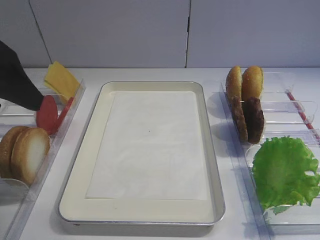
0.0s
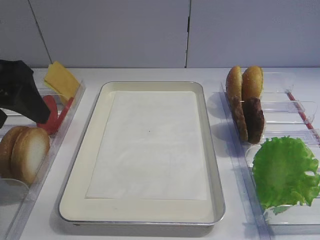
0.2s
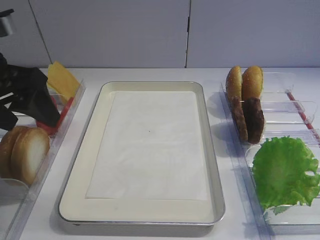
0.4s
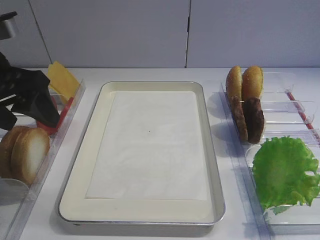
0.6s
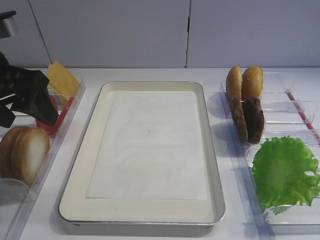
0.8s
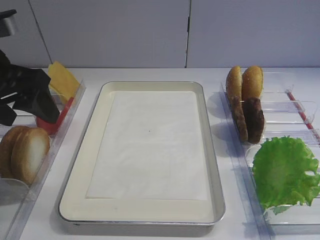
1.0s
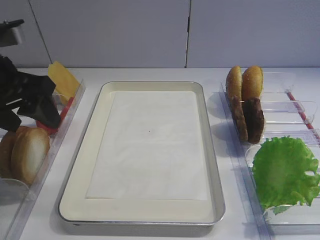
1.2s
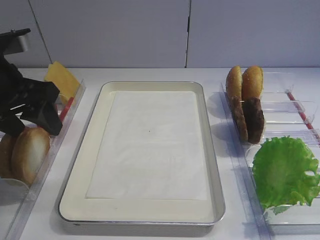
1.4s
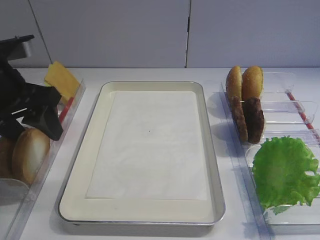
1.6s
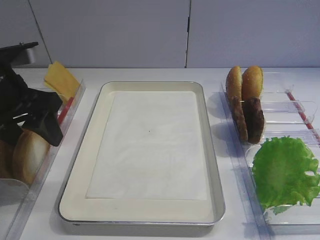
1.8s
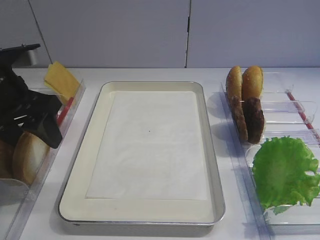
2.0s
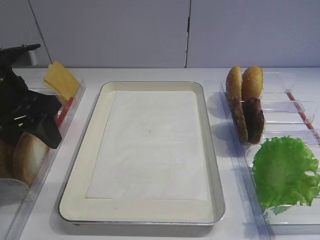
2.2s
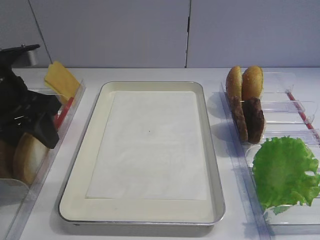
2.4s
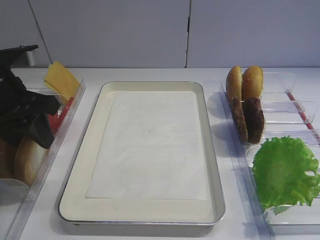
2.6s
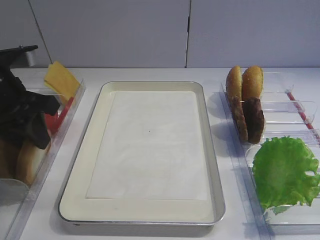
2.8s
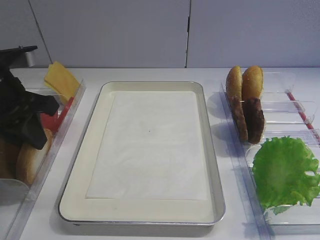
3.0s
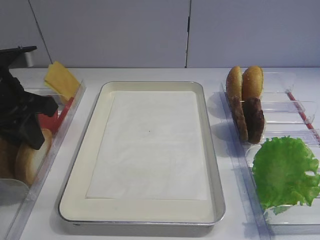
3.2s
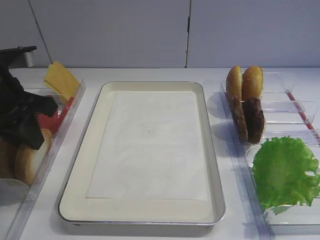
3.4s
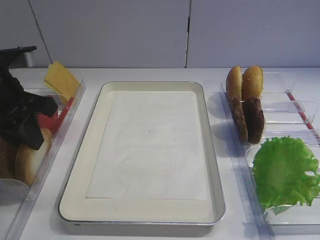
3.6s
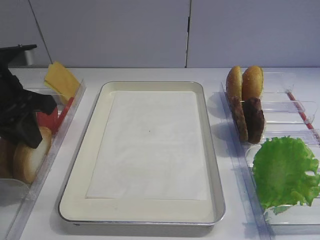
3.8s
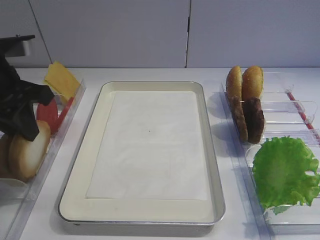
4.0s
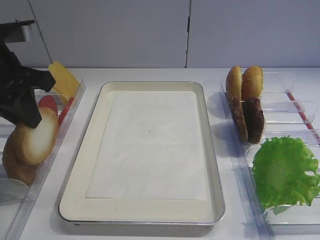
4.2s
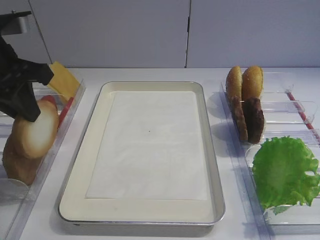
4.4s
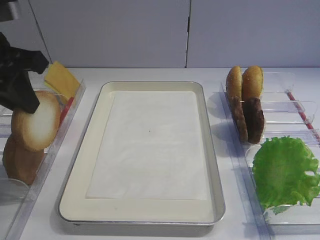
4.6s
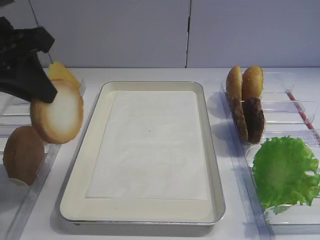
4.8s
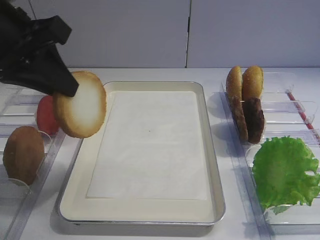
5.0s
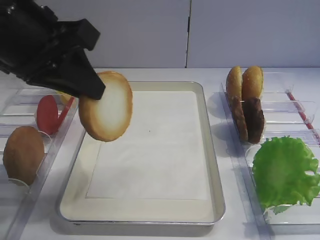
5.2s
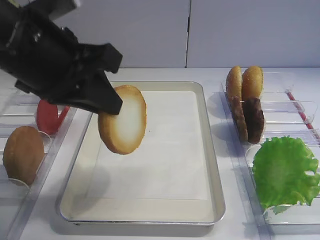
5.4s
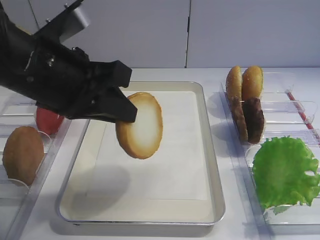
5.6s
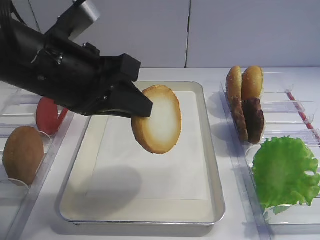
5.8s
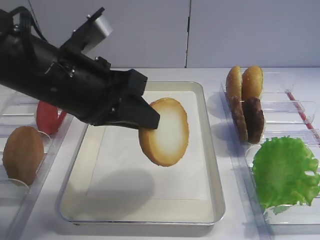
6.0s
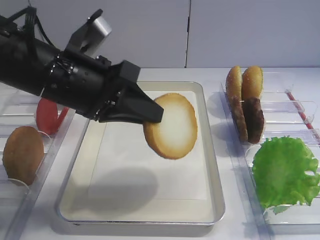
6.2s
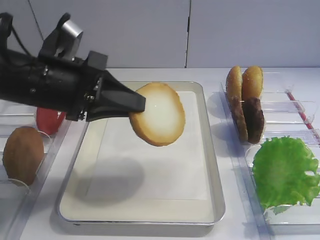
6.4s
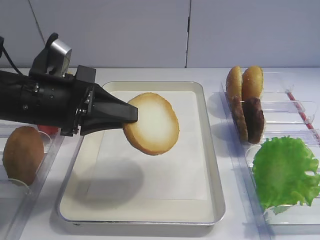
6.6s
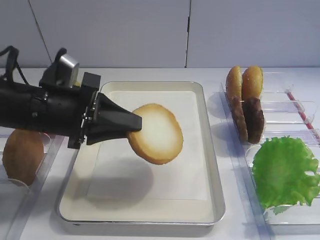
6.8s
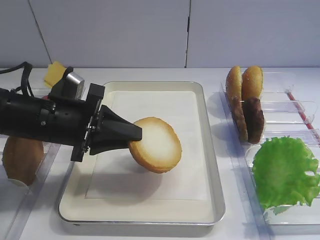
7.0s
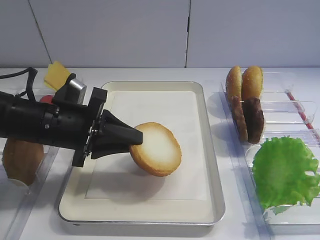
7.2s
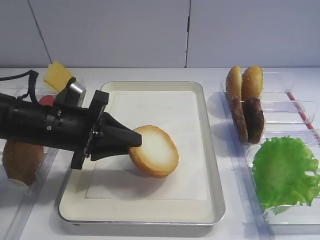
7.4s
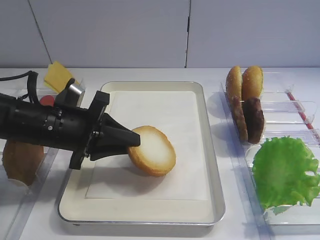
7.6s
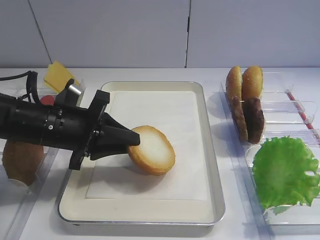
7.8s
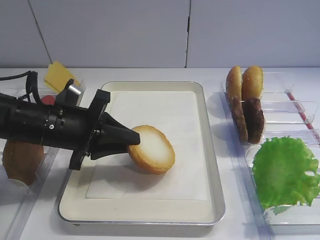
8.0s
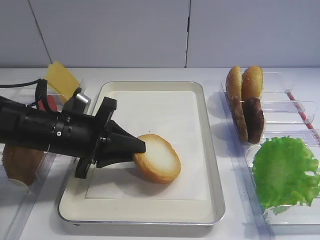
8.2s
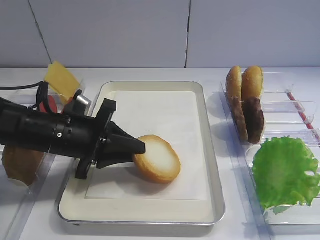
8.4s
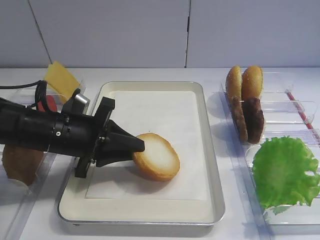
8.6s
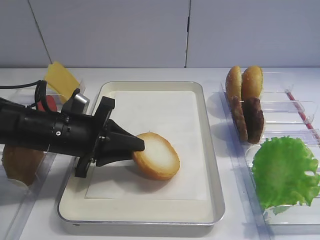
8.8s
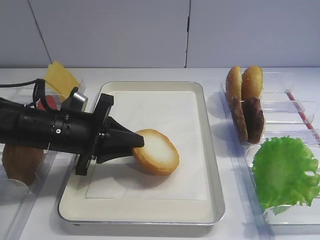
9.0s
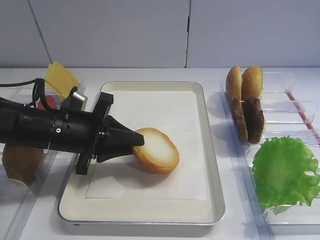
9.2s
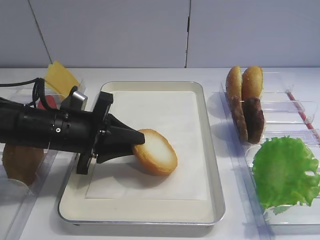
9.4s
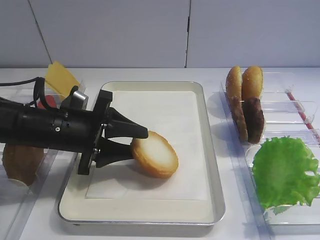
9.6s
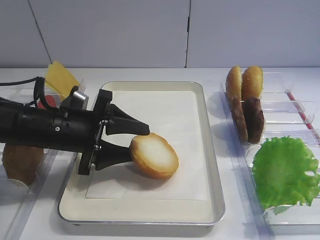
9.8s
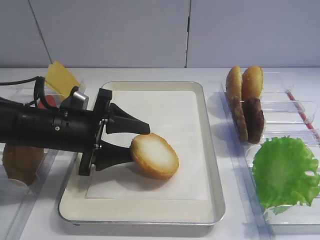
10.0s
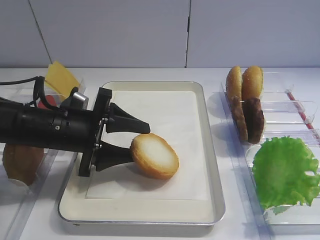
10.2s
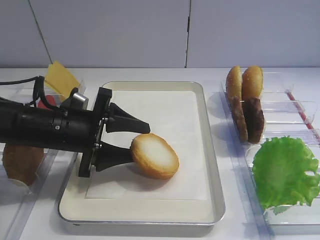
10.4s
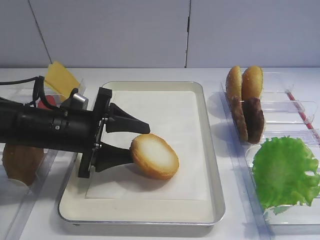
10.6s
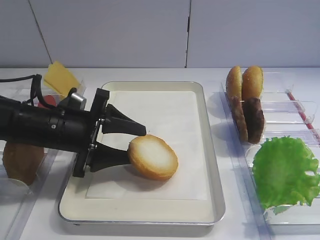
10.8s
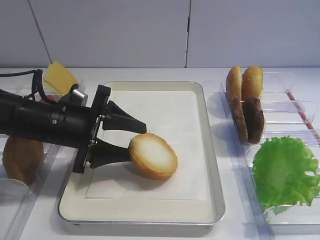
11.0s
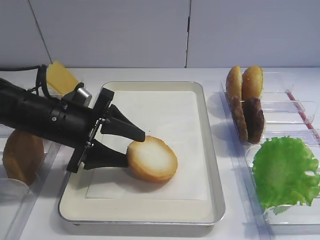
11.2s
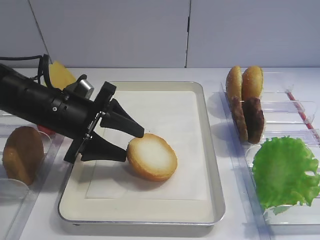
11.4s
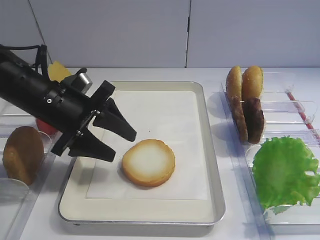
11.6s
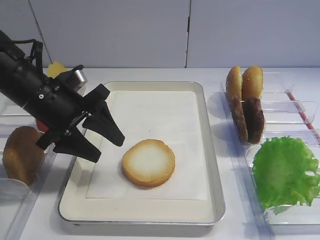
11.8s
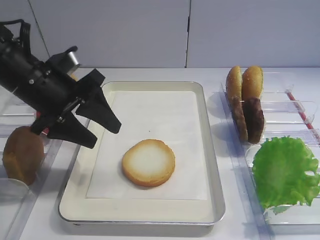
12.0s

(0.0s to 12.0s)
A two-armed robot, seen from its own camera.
Step, 0.0s - 4.4s: Pick up the bread slice with the left gripper.
Step, 4.6s - 11.4s: Place the bread slice on the tray with the left gripper.
0.0s - 1.6s: The left gripper goes some 10 cm downward and forward.
1.6s - 3.0s: The left gripper closes.
3.0s - 4.4s: The grippers make only small movements.
4.4s - 6.0s: The left gripper is displaced to the right by about 10 cm.
6.0s - 7.6s: The left gripper moves downward, some 10 cm.
7.6s - 9.0s: There are only small adjustments of the grippers.
9.0s - 10.4s: The left gripper opens its fingers.
10.4s - 12.0s: The left gripper travels upward by approximately 5 cm.

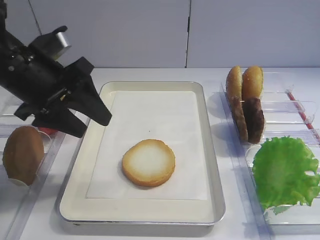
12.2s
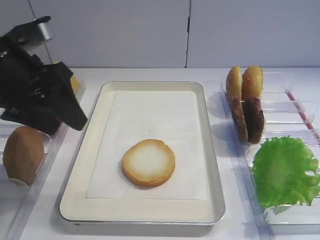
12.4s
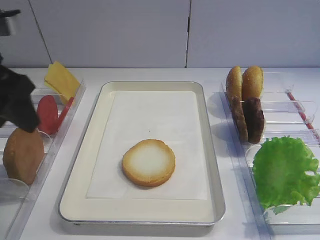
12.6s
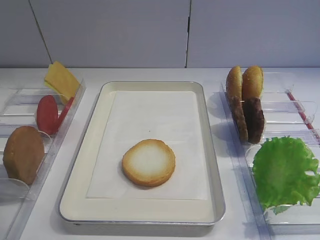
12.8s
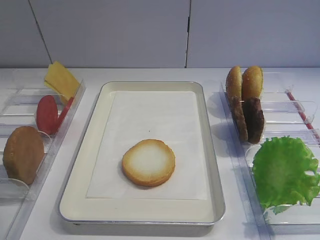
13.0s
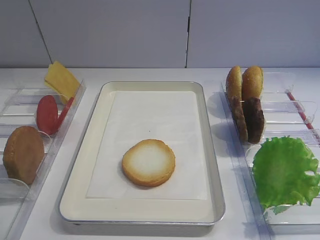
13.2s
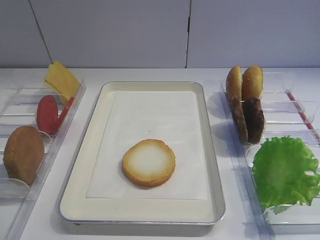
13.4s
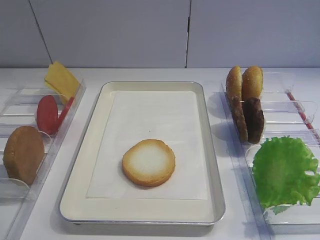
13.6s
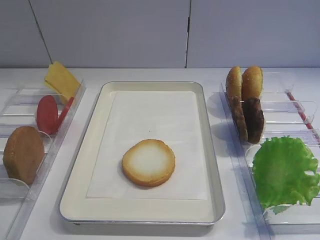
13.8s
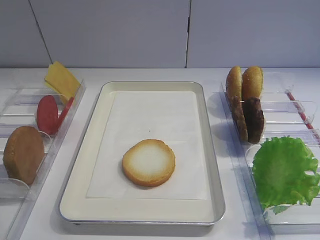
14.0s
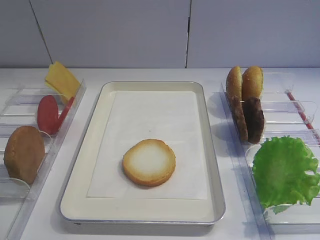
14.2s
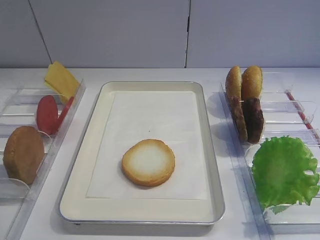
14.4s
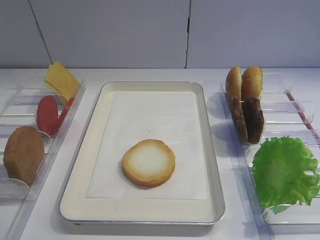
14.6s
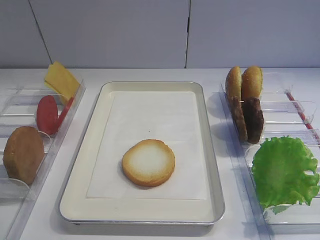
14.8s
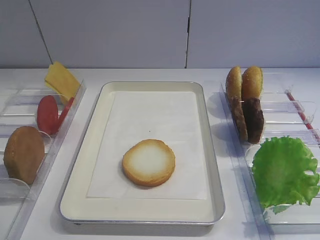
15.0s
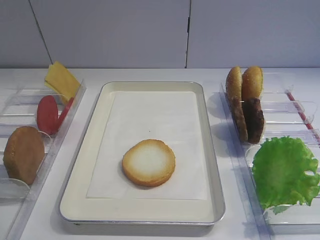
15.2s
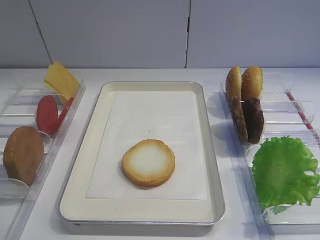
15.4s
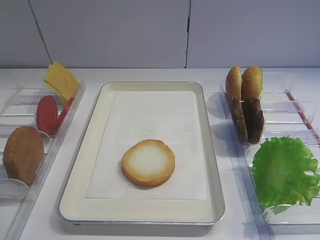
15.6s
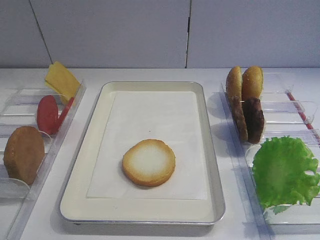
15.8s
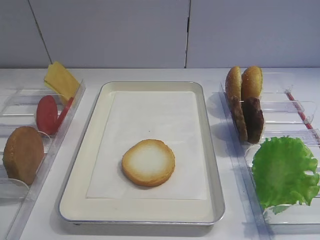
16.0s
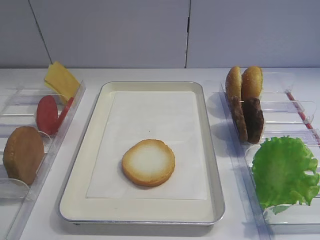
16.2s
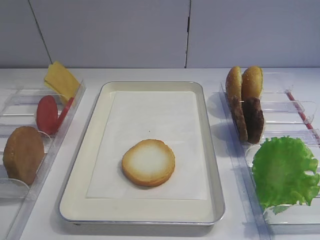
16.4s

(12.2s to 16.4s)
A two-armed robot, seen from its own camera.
12.2s - 13.6s: The left gripper moves backward and to the left, about 25 cm.
15.0s - 16.4s: Neither gripper changes place.
